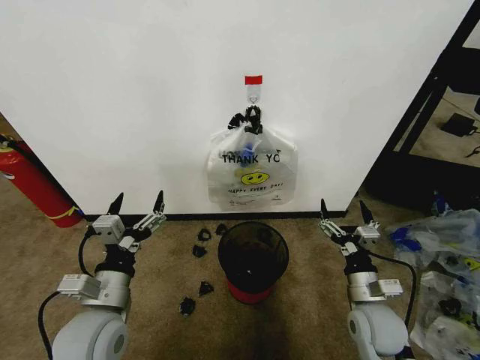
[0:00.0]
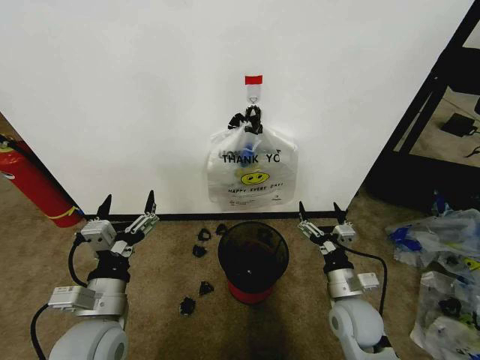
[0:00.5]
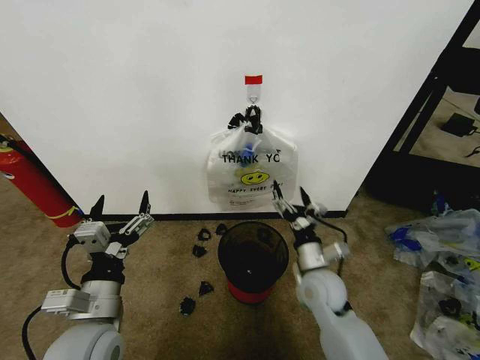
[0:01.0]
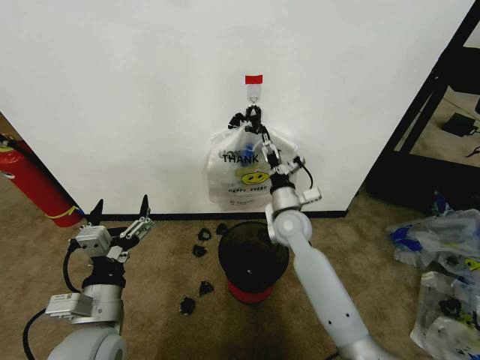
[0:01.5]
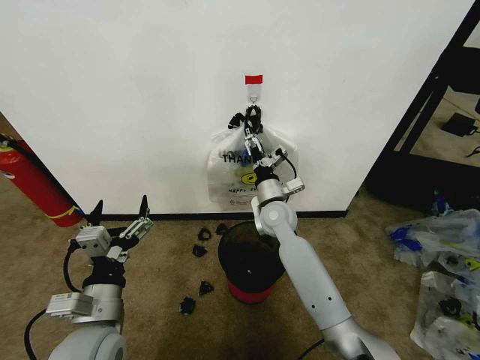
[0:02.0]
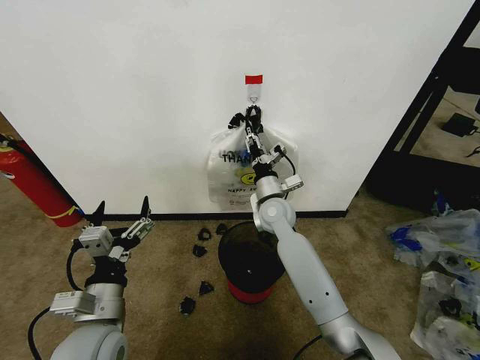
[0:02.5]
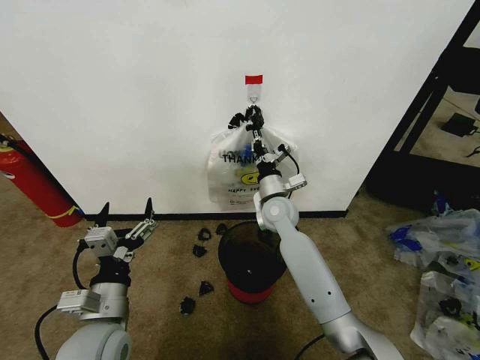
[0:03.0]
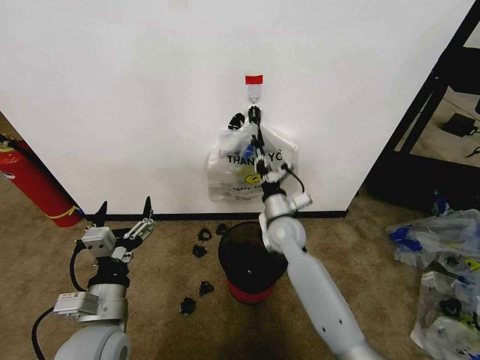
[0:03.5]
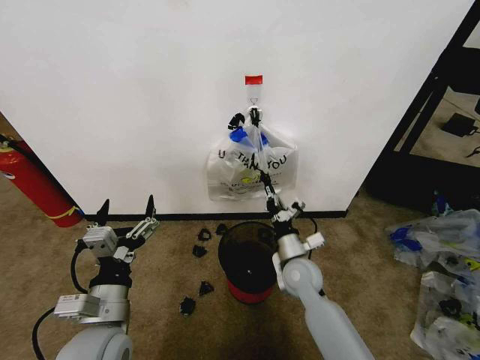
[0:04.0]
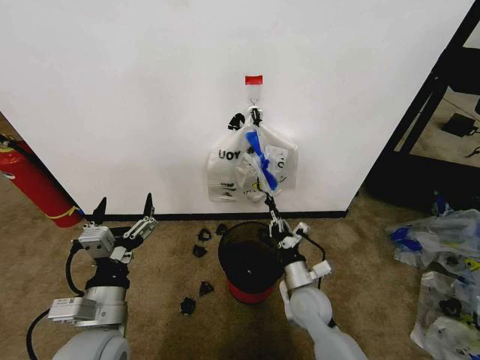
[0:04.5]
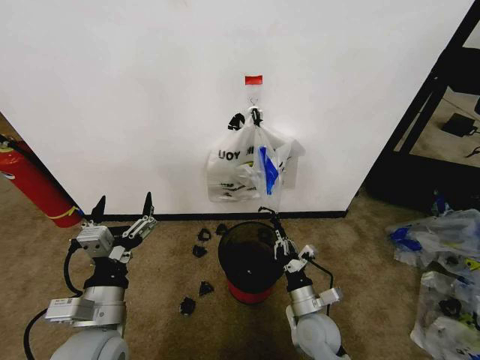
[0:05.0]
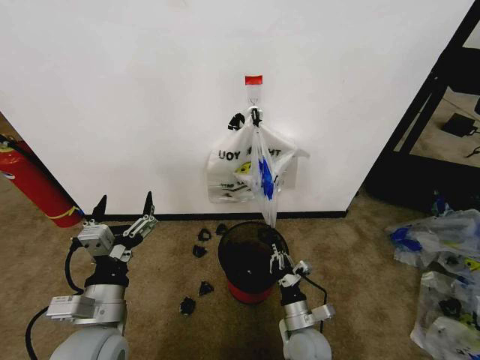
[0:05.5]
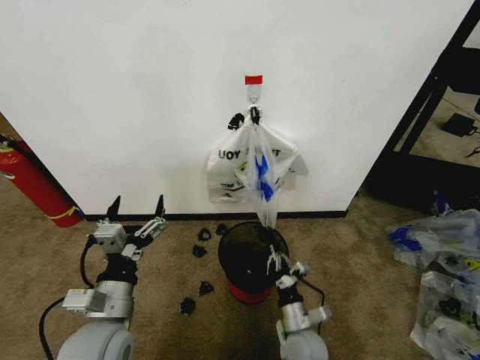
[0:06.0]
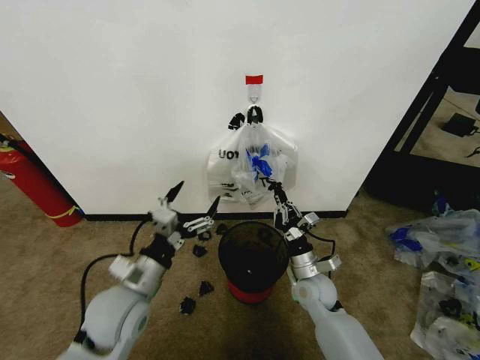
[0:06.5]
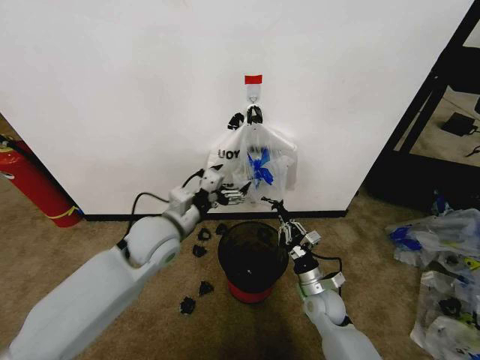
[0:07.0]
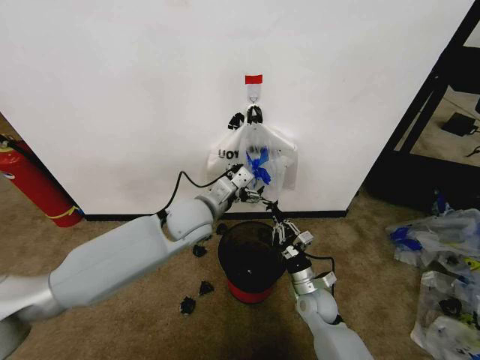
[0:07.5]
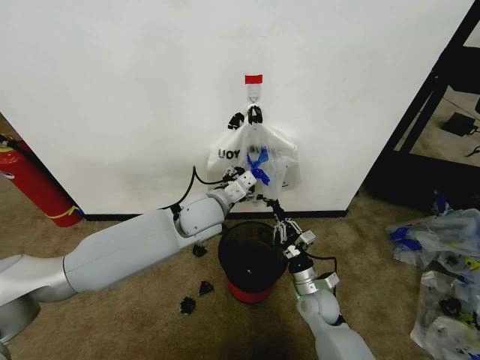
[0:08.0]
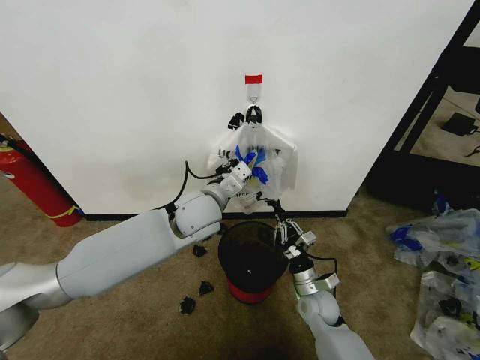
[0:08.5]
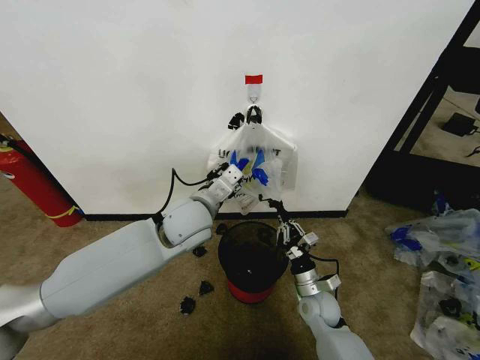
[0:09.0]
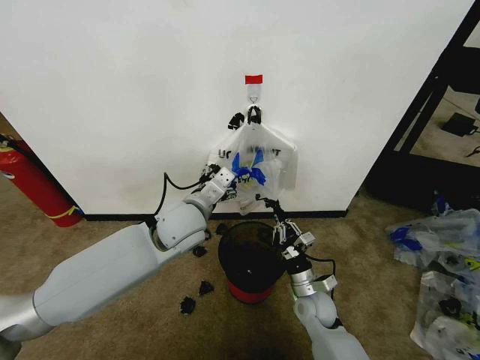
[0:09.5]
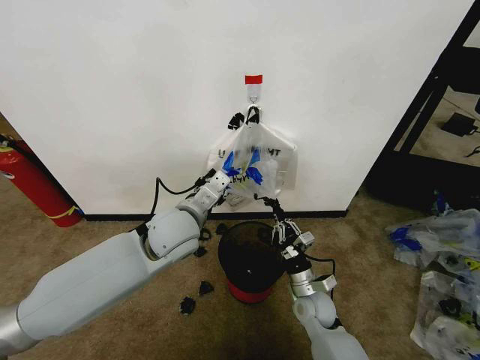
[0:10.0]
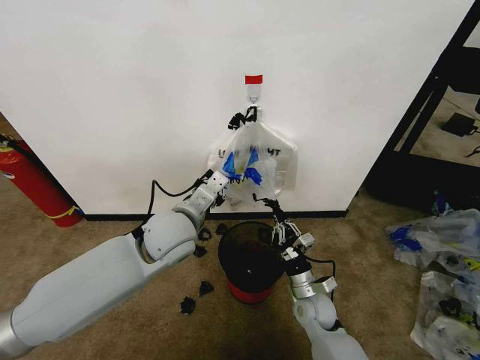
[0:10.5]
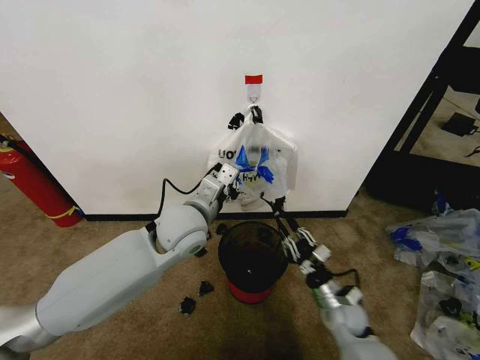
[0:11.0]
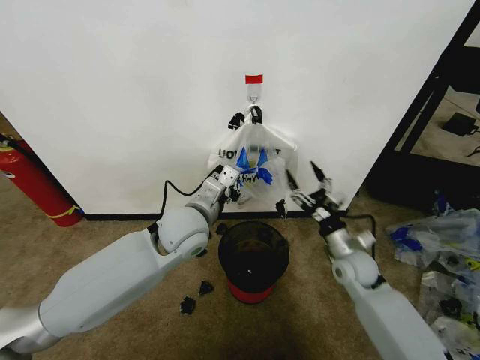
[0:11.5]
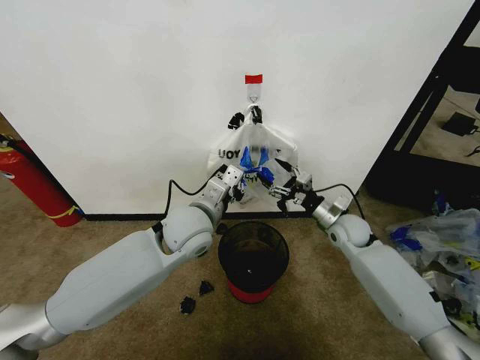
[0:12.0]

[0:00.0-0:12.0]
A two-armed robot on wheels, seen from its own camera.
Task of the whole recording: Pick up the garbage bag from the wall and place it over the trash bin.
0:02.0 to 0:04.0: The right gripper is displaced backward, downward and to the right by approximately 15 cm, and closes.
0:04.0 to 0:06.0: The right gripper goes approximately 15 cm backward and downward.
0:06.0 to 0:08.0: The right gripper shifts about 10 cm forward; the left gripper goes approximately 25 cm forward and to the right.
0:08.0 to 0:10.0: The left gripper moves backward, approximately 5 cm, and closes up.
0:10.0 to 0:12.0: The right gripper is displaced forward, upward and to the right by roughly 20 cm, and opens its fingers.

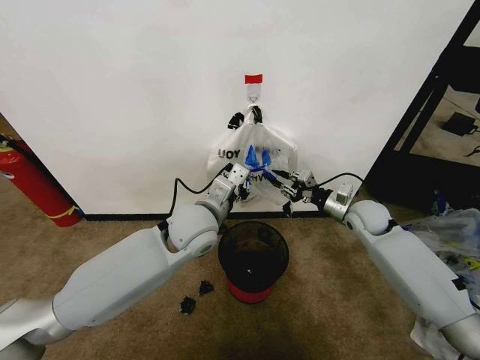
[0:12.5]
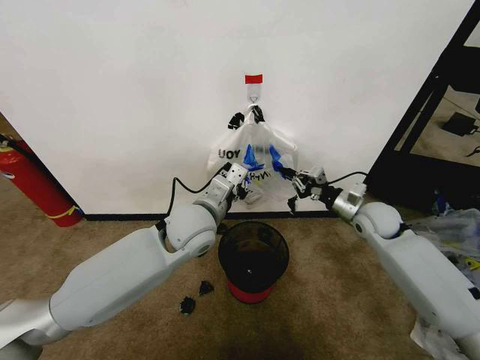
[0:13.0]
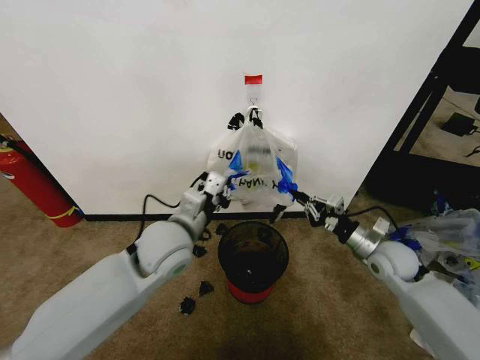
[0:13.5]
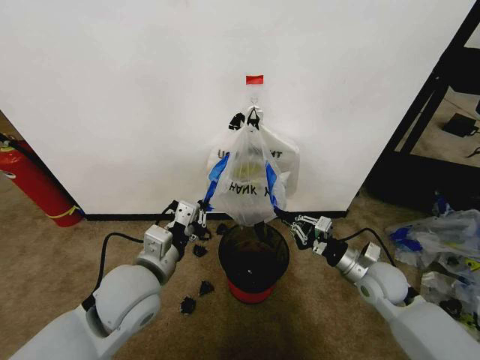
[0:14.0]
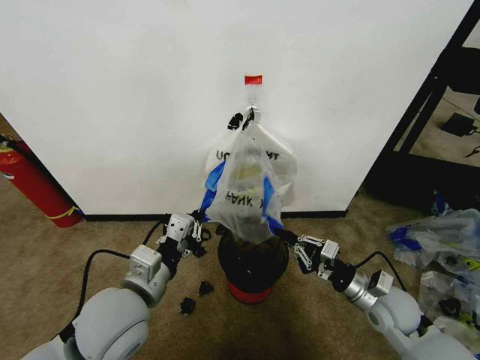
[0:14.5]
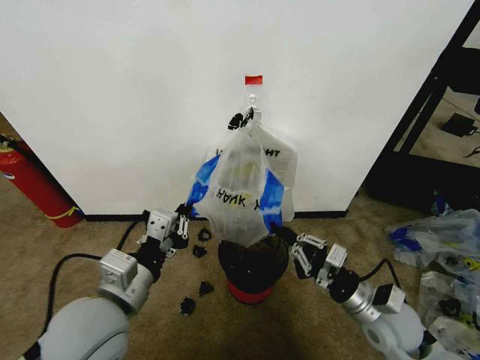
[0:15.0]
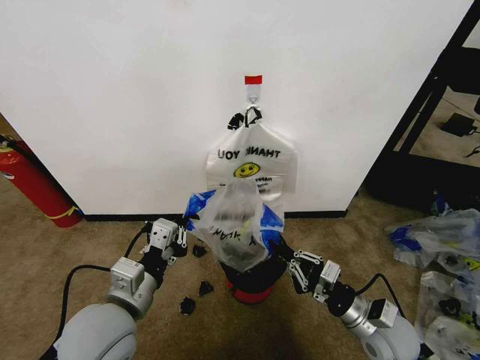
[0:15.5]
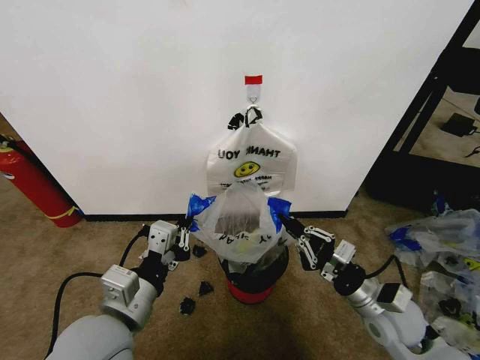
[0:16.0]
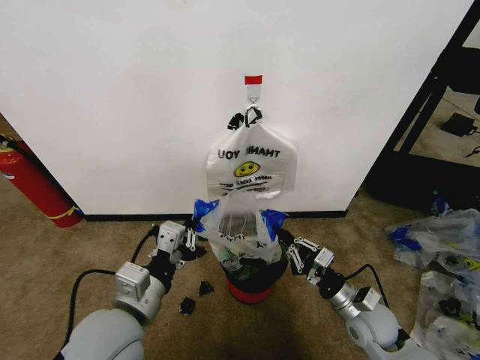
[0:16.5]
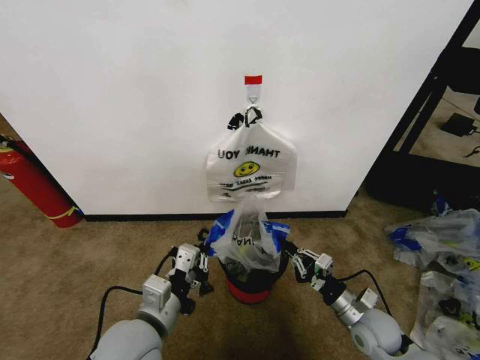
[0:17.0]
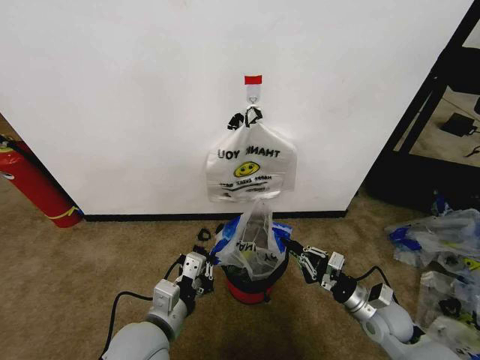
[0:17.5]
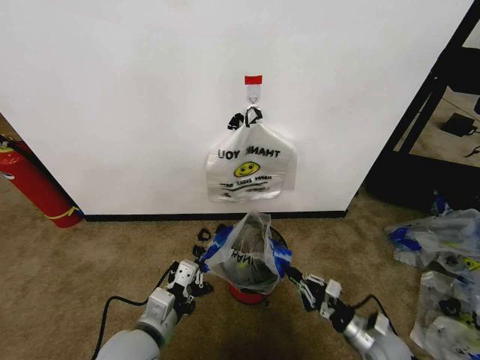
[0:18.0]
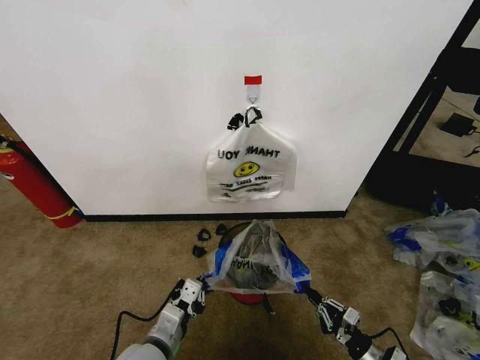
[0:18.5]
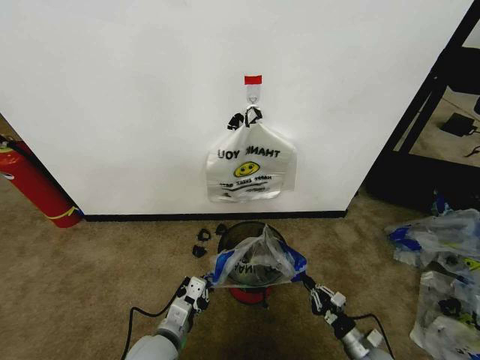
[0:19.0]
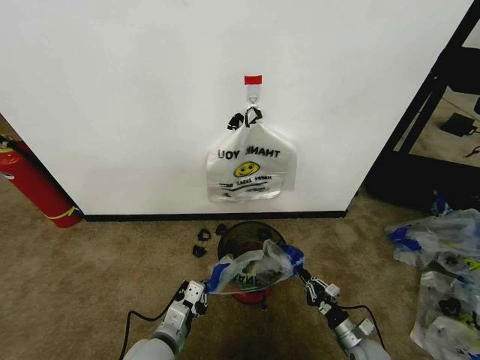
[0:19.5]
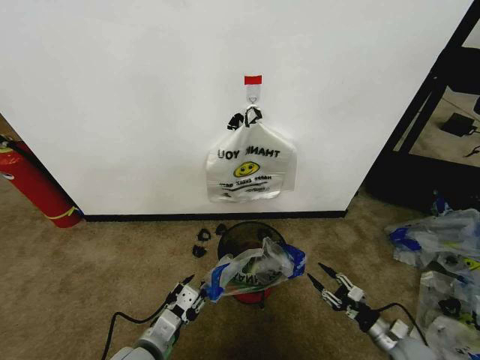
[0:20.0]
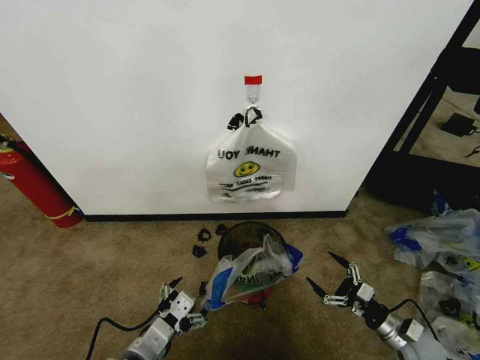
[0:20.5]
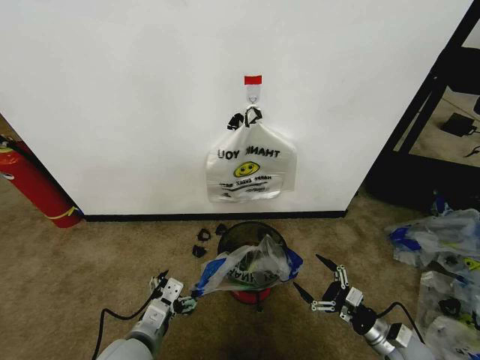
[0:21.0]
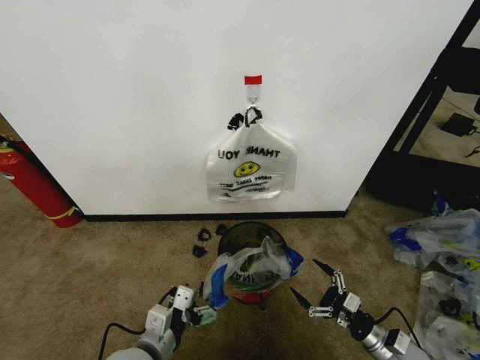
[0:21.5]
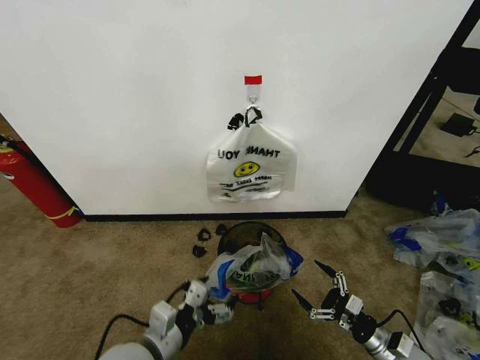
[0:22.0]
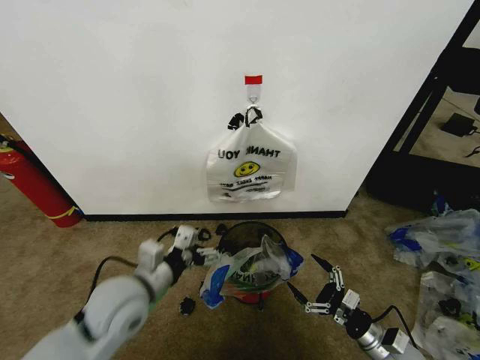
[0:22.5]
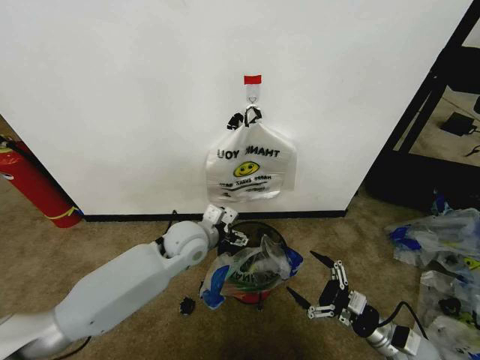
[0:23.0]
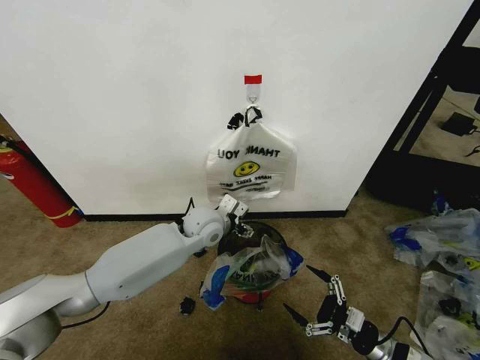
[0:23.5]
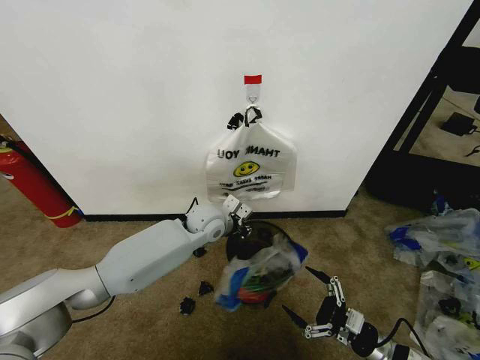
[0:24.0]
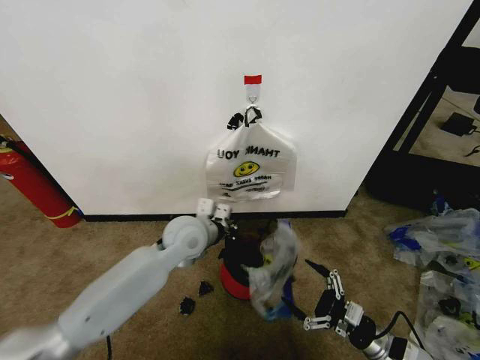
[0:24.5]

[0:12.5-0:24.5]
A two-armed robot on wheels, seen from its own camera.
Task of the whole recording: Pick up the garbage bag from the wall and place it over the trash bin.
0:12.5 to 0:14.5: The left gripper travels backward and to the left by some 20 cm. The right gripper moves backward, some 20 cm.
0:14.5 to 0:16.5: The right gripper ends up some 5 cm from where it was.
0:16.5 to 0:18.5: The right gripper moves downward, backward and to the right, some 20 cm. The left gripper moves downward, roughly 15 cm.
0:18.5 to 0:20.5: The left gripper shifts by approximately 5 cm, and opens; the right gripper heads forward and to the right, covering roughly 10 cm, and opens up.
0:20.5 to 0:22.5: The right gripper travels to the left by some 5 cm. Meanwhile the left gripper moves forward and upward, approximately 15 cm.
0:22.5 to 0:24.5: The left gripper shifts roughly 20 cm forward and to the right, and closes up.

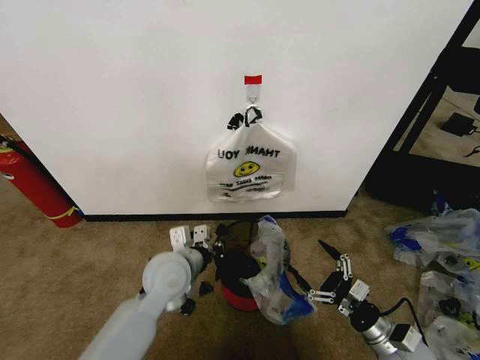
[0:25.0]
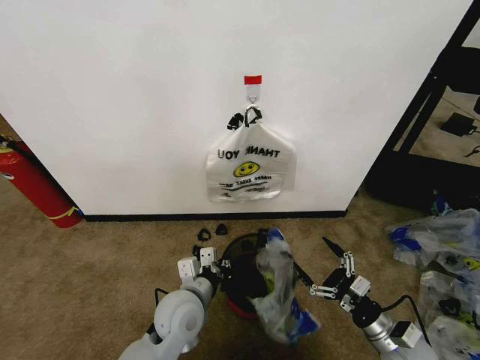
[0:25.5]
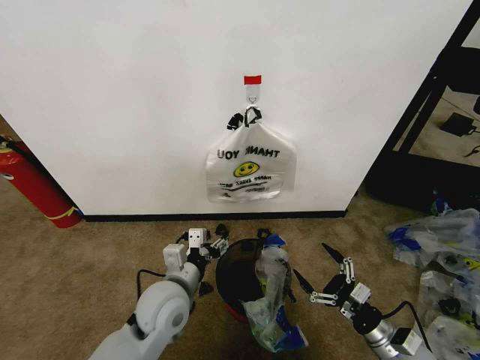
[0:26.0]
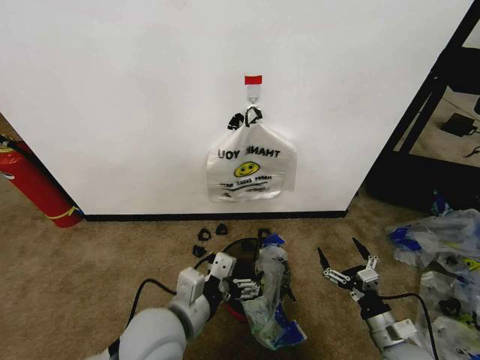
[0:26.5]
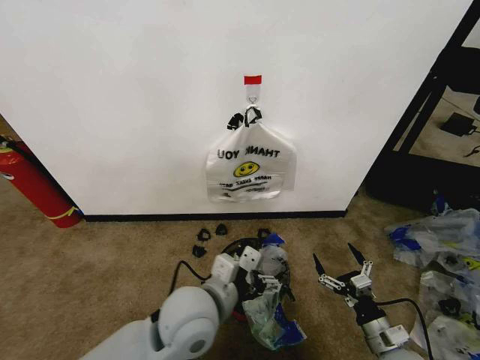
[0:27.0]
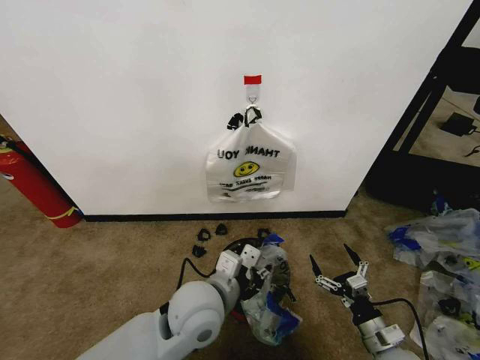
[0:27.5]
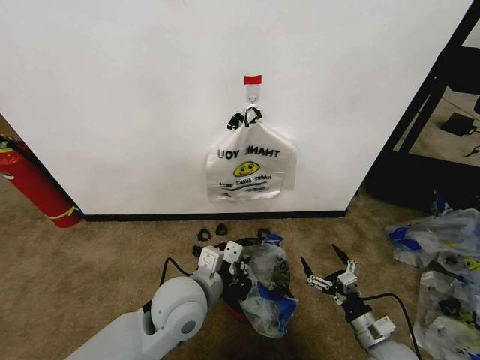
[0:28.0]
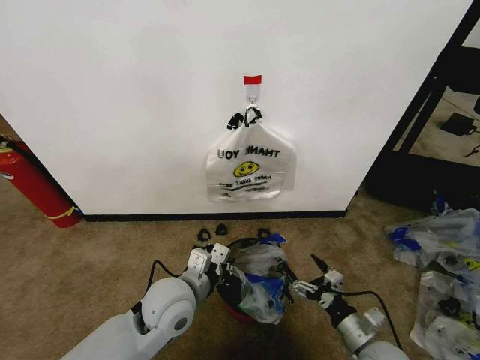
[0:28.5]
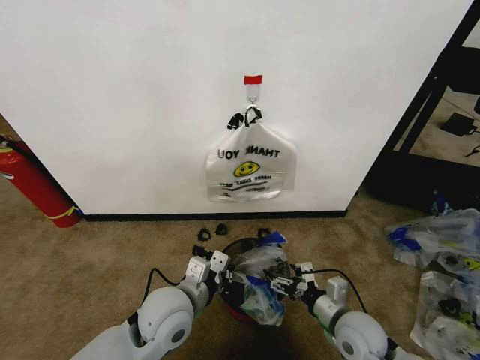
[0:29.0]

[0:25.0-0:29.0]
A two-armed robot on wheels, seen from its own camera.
Task of the whole recording: Pick up the garbage bag from the wall and place it over the trash bin.
0:25.0 to 0:27.0: The left gripper moves backward and to the right, some 10 cm, and opens its fingers.
0:27.0 to 0:29.0: The left gripper shifts approximately 5 cm to the left, and closes, while the right gripper is displaced to the left, forward and upward by approximately 10 cm.
